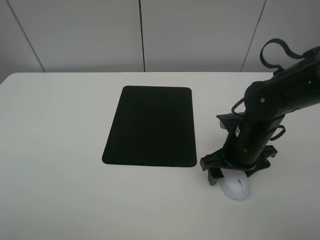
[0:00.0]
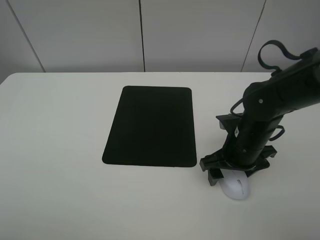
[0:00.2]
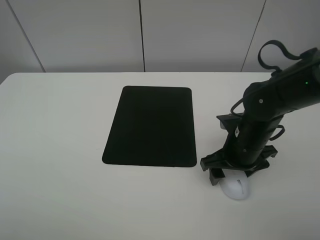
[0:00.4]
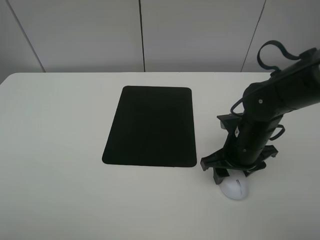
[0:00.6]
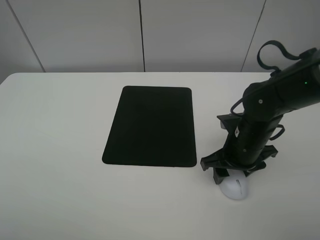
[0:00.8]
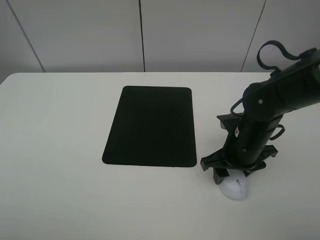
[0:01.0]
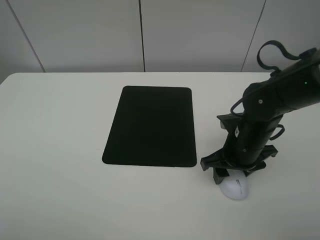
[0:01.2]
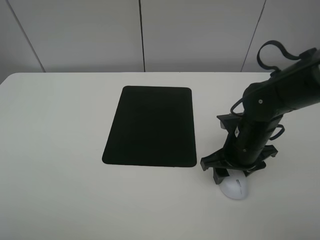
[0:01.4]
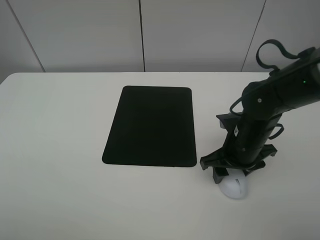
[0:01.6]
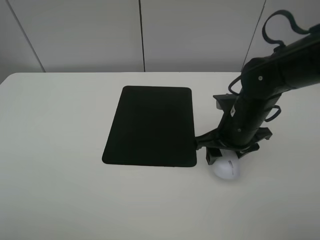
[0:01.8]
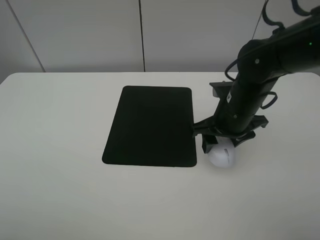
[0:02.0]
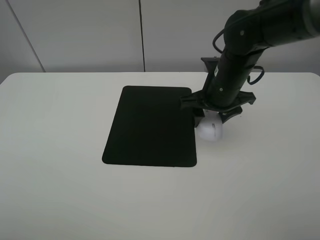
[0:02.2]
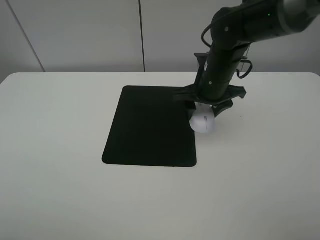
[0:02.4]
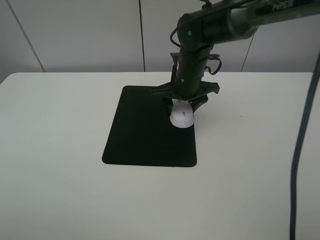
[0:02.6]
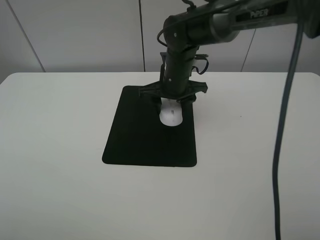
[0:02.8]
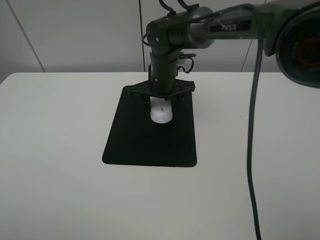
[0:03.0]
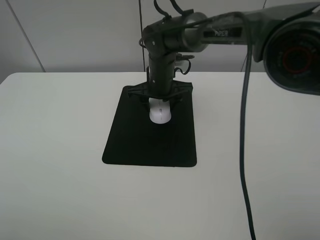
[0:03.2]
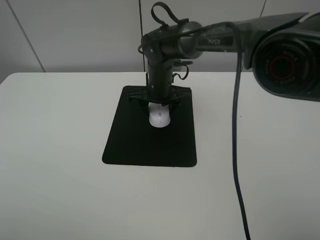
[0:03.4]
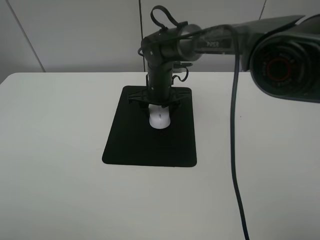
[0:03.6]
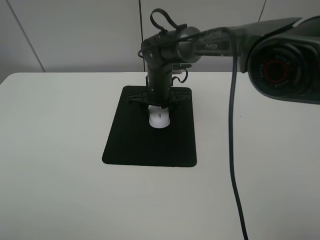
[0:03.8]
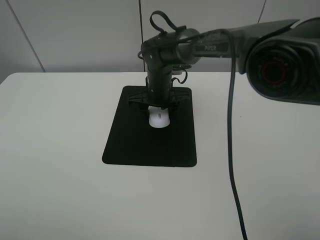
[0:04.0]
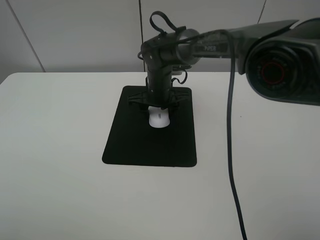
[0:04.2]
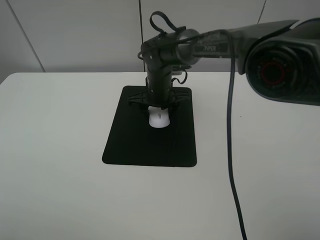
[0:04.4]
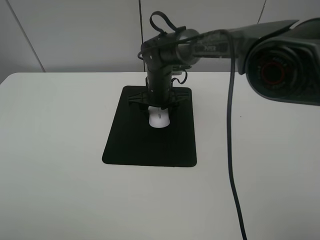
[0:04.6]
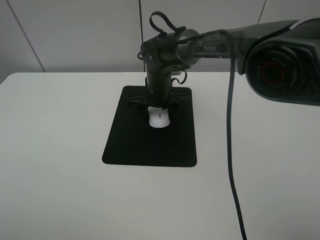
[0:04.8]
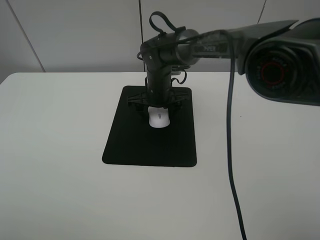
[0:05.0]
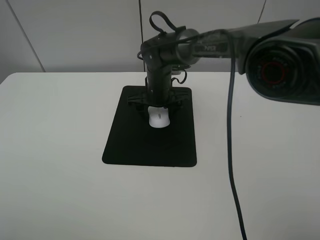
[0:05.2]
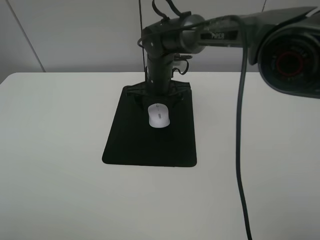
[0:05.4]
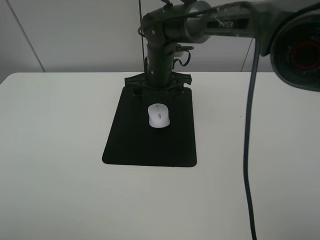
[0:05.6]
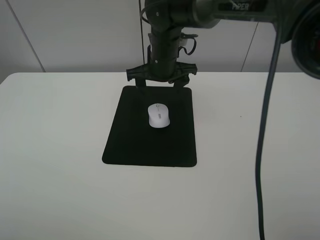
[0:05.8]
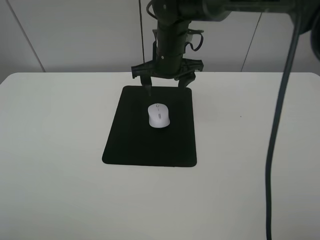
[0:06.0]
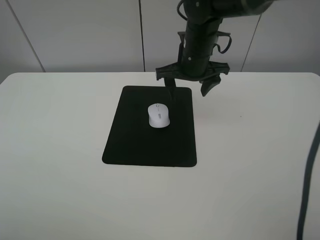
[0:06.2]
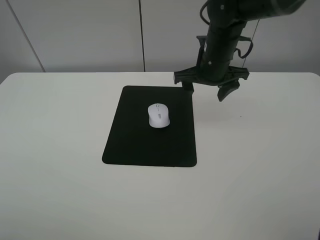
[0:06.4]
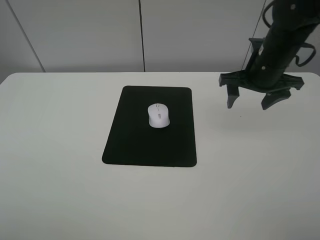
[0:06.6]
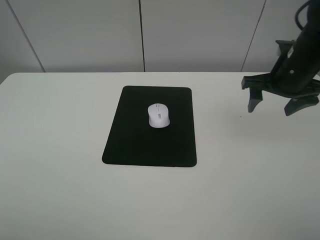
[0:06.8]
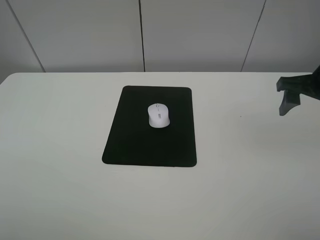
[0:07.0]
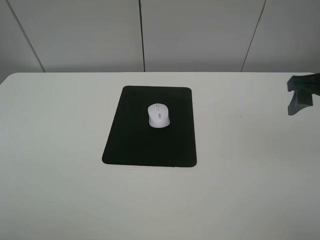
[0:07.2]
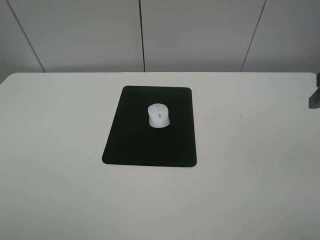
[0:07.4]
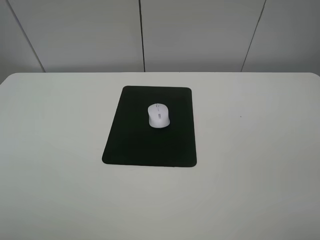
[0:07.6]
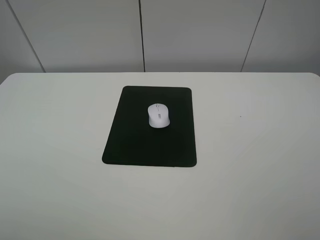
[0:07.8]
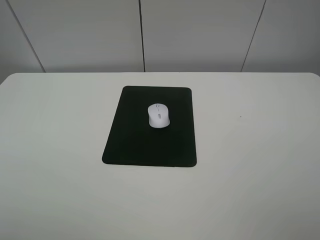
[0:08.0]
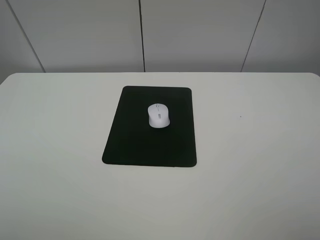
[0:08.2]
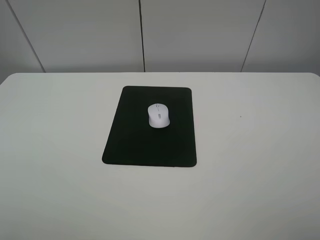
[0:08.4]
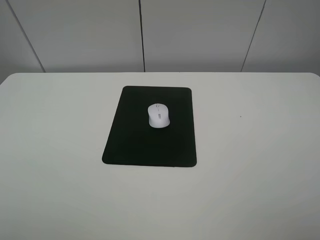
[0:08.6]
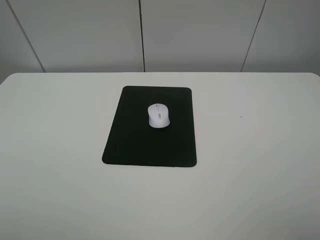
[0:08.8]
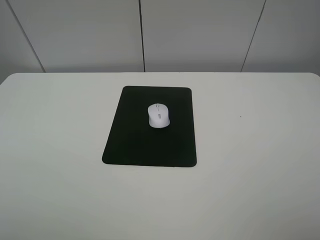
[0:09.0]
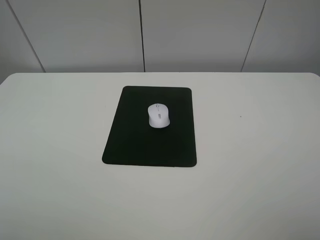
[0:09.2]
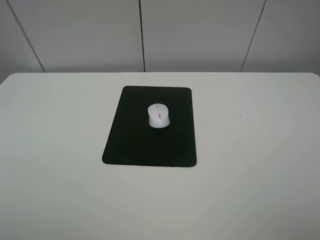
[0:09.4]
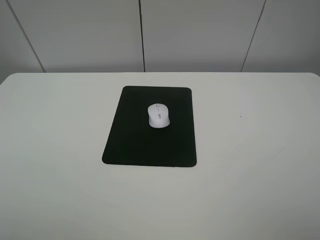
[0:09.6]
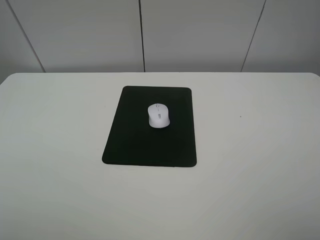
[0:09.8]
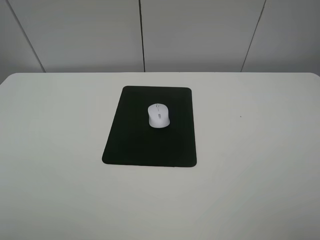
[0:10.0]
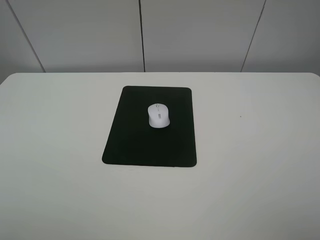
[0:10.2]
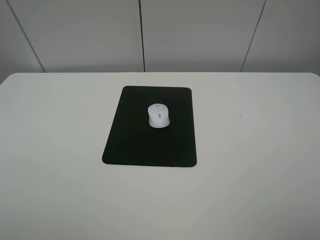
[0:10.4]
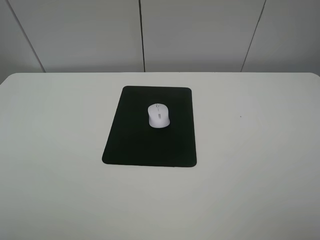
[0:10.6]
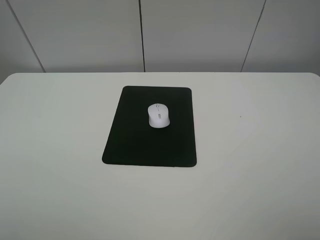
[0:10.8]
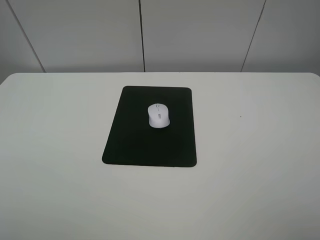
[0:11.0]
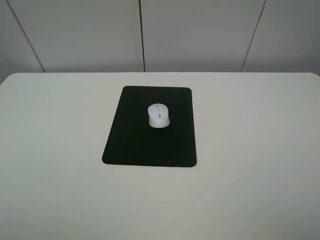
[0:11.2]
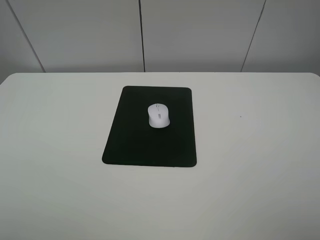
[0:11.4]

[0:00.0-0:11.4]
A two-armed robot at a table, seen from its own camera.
Step, 0:01.2 to 0:05.0: Place the mouse on the mouse mat with the right gripper.
0:00.0 to 0:01.4: The right gripper closes up.
0:01.4 to 0:02.8: The right gripper is displaced forward and to the left by some 20 cm.
0:02.8 to 0:04.2: The right gripper travels downward by approximately 5 cm.
0:04.2 to 0:05.6: The right gripper shifts some 5 cm upward, and opens up.
0:05.6 to 0:07.2: The right gripper shifts some 35 cm to the right and backward.
0:07.2 to 0:08.6: The right gripper goes approximately 20 cm backward.
0:10.0 to 0:11.4: Both grippers stay about where they are.
